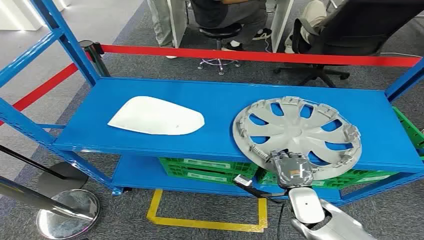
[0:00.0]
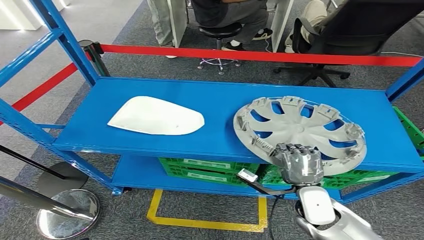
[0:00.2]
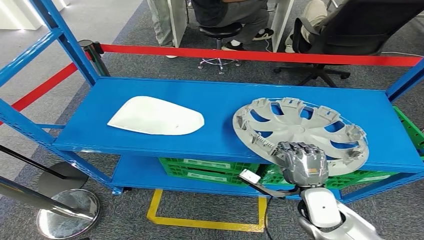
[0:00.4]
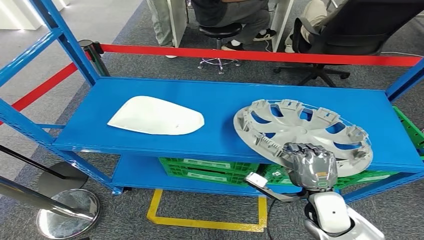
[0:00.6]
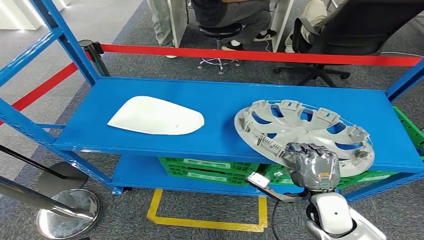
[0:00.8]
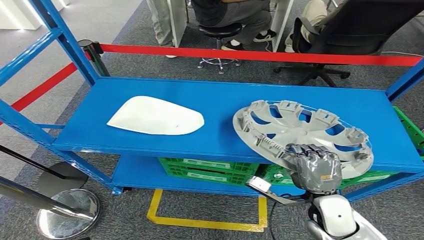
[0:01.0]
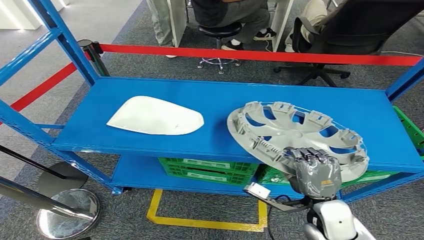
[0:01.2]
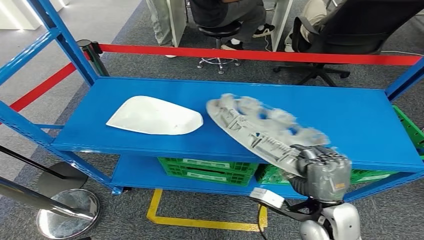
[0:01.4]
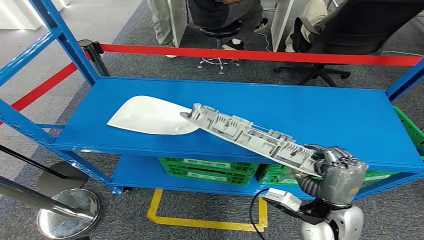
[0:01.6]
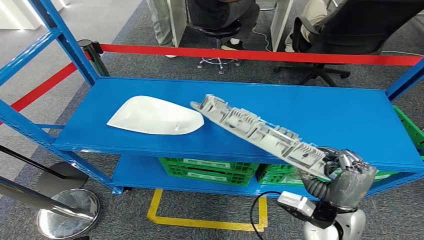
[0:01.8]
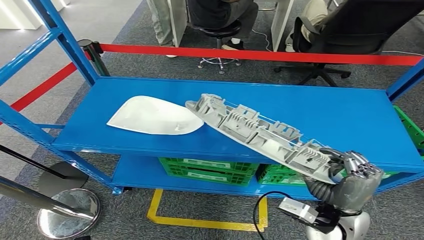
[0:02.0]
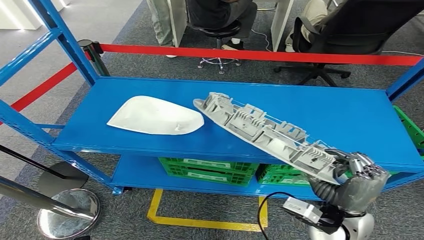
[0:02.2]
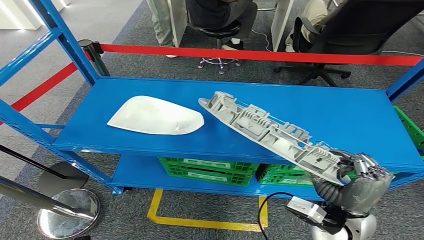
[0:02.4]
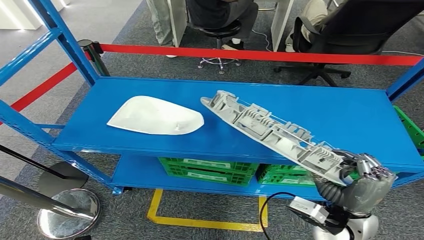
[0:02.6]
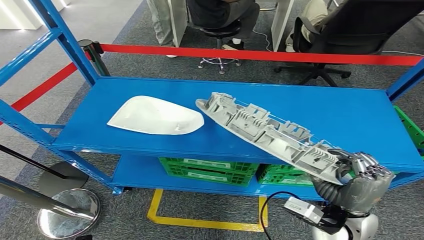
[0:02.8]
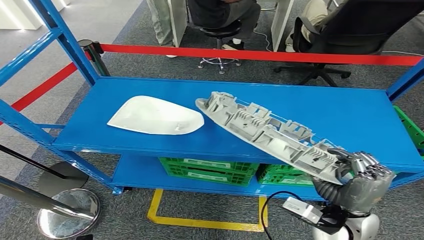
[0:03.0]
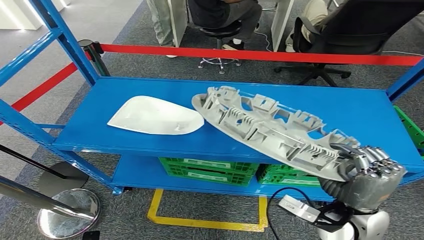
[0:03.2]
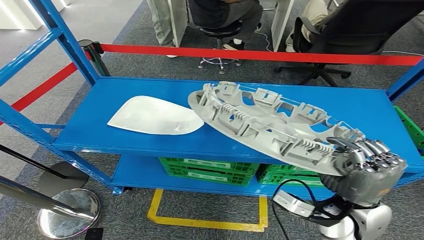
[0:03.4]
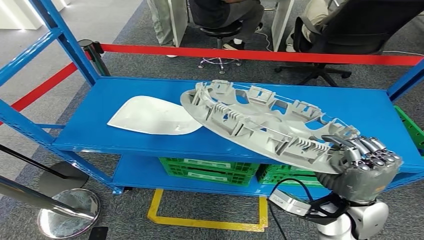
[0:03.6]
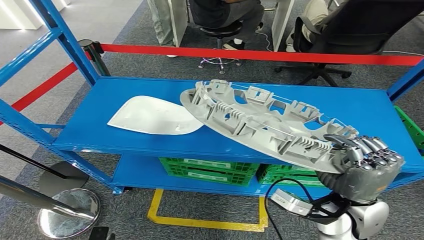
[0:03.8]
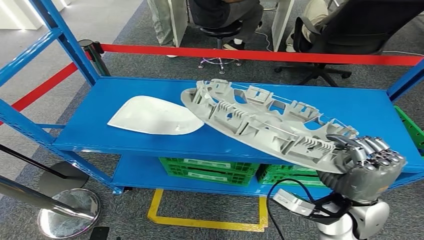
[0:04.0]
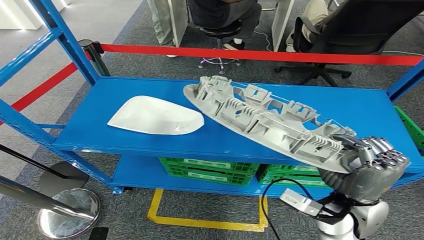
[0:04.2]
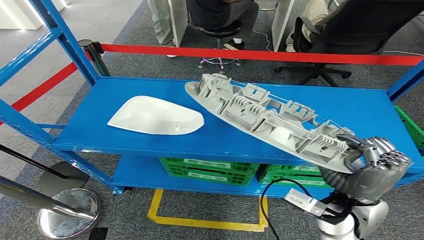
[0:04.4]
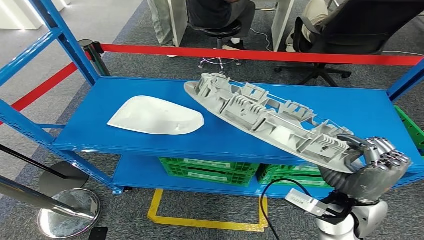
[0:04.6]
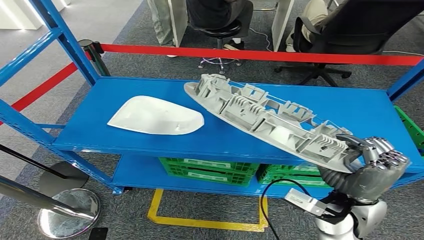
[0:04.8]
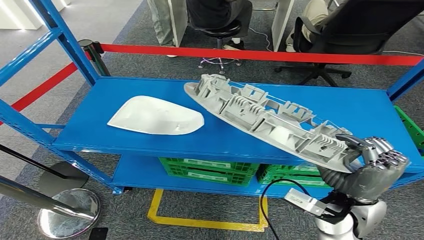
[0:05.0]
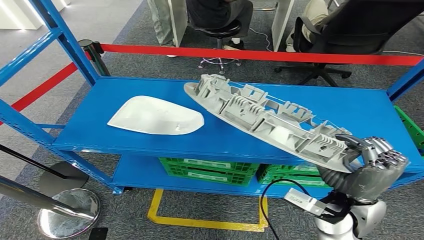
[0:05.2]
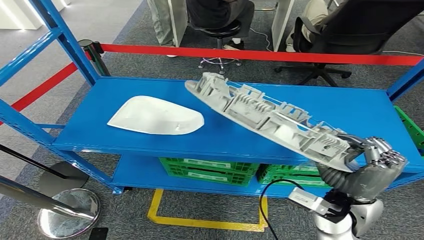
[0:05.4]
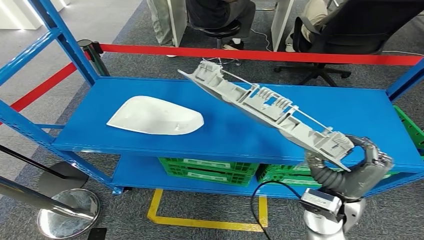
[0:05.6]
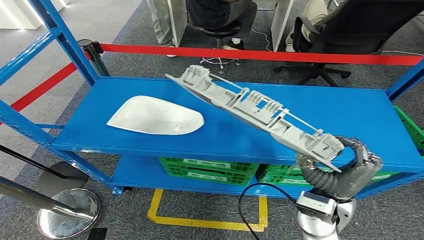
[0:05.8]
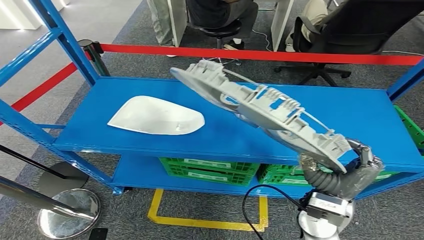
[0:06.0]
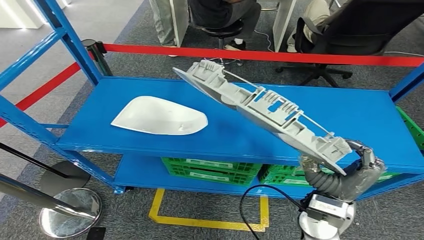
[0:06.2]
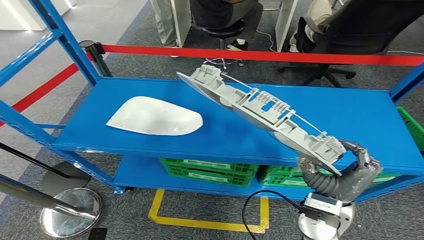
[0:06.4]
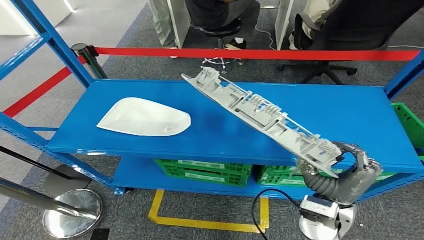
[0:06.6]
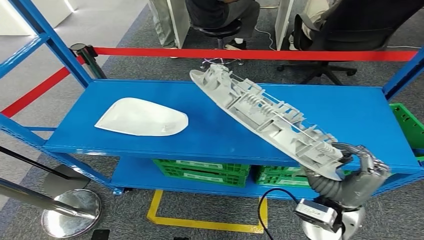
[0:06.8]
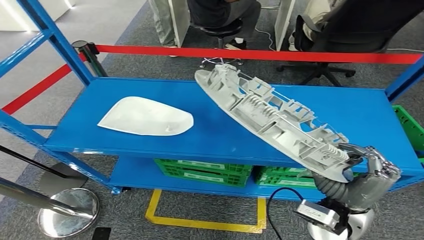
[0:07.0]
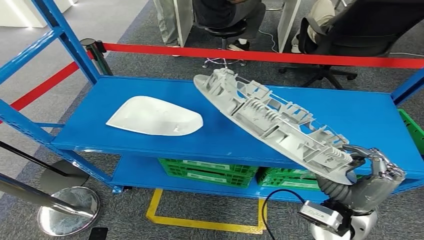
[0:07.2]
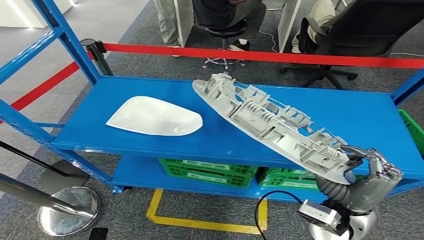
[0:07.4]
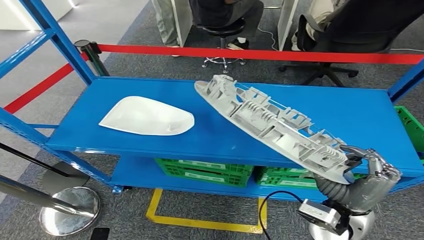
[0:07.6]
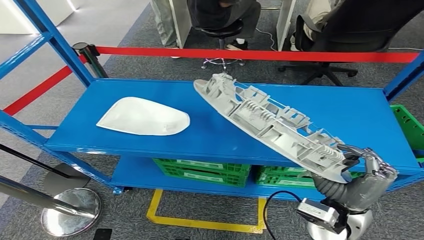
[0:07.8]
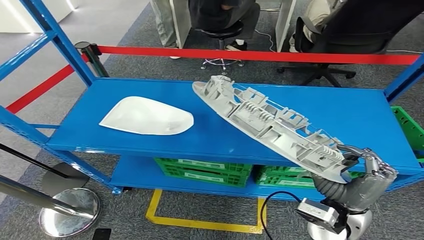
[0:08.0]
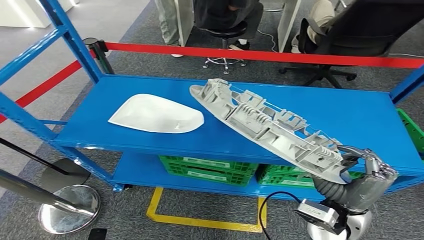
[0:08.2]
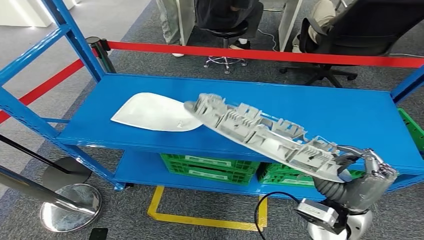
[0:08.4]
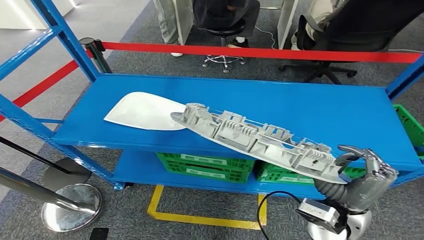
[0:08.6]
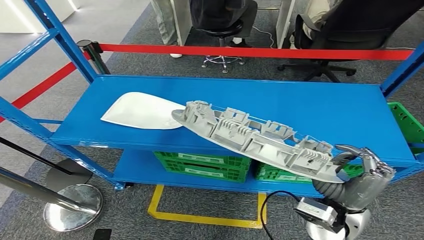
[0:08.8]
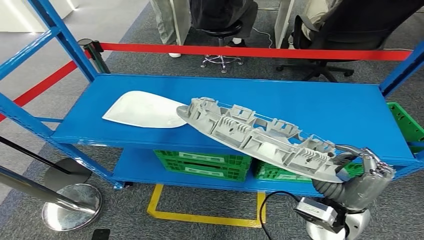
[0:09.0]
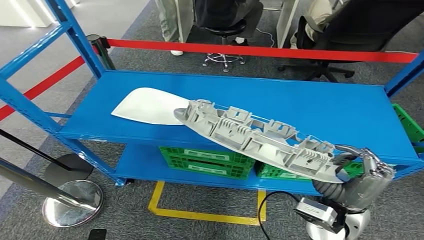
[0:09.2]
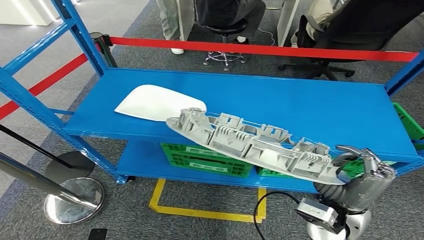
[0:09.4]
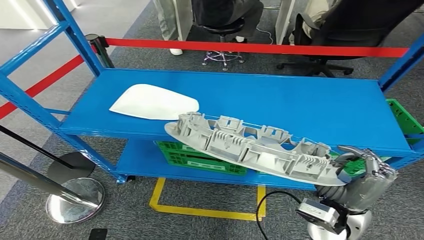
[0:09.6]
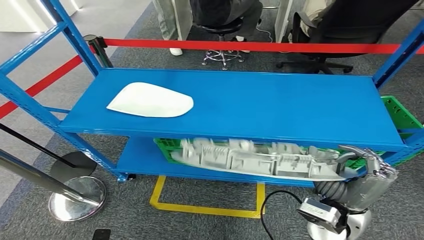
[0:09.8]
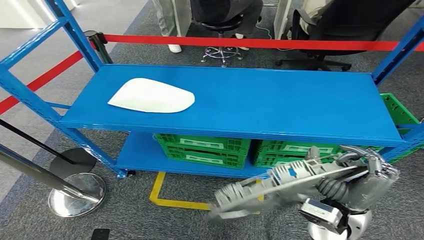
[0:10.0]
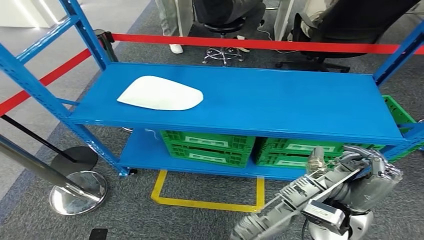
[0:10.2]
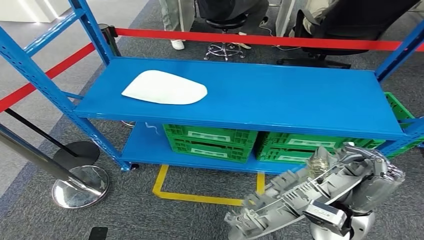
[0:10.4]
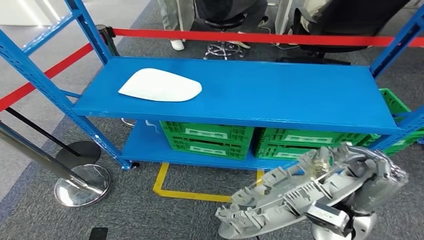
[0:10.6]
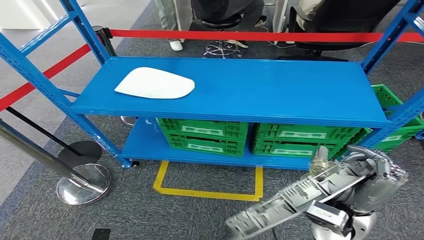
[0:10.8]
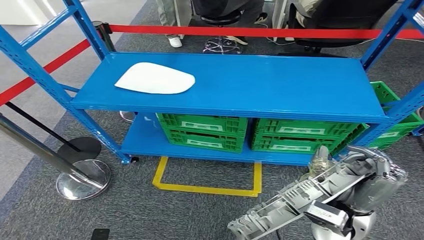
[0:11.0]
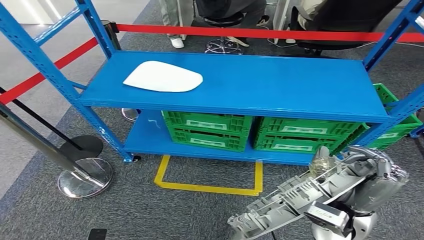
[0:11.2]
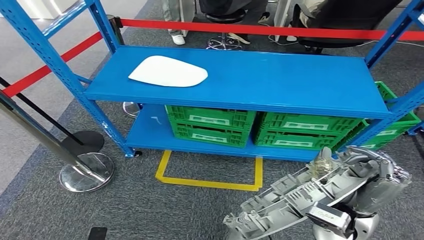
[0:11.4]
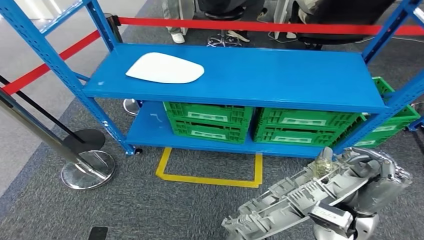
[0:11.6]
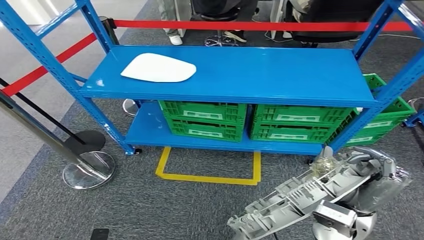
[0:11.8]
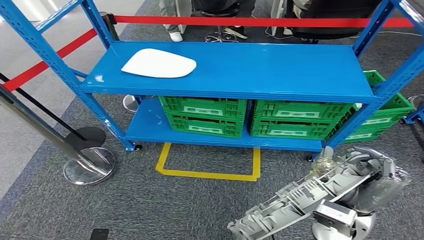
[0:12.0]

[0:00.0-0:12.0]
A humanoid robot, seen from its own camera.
Step, 0:00.0 to 0:04.2: Pick up the small component from the shelf.
0:01.6 to 0:03.0: The hands make only small movements.

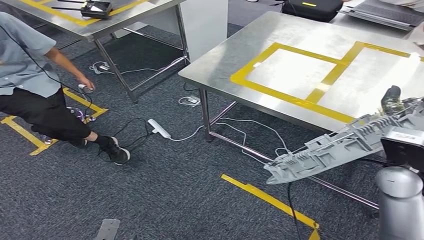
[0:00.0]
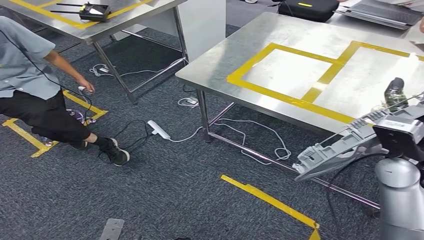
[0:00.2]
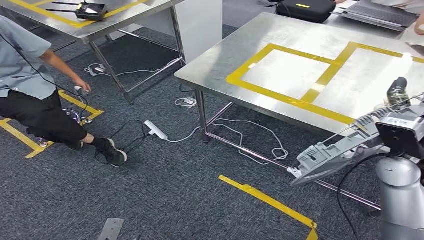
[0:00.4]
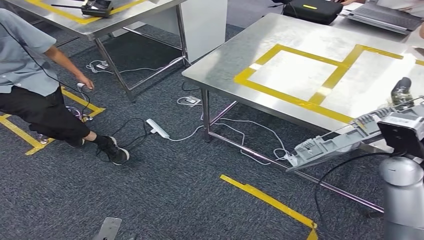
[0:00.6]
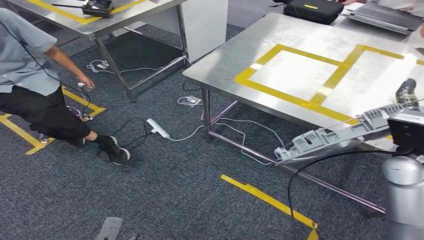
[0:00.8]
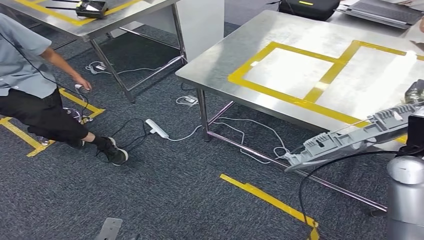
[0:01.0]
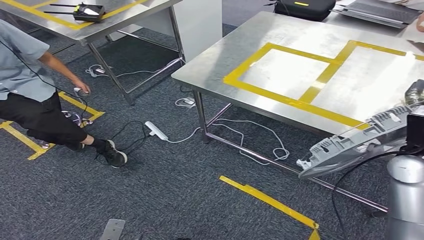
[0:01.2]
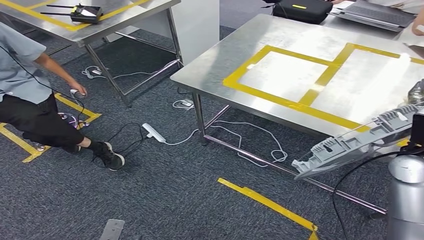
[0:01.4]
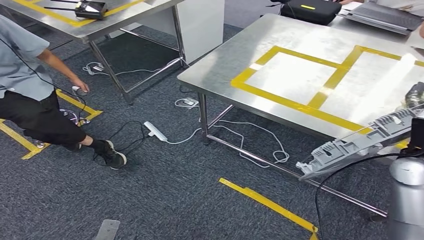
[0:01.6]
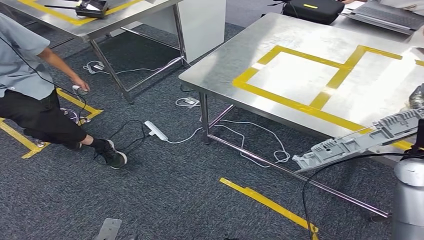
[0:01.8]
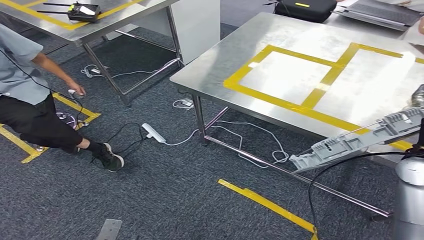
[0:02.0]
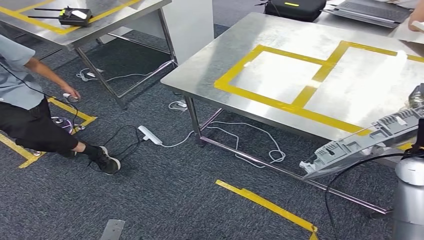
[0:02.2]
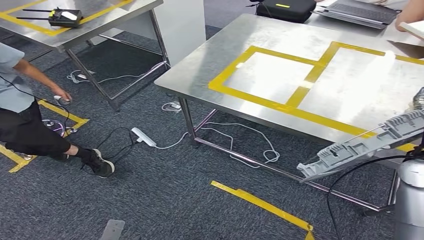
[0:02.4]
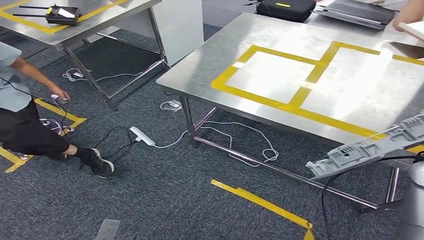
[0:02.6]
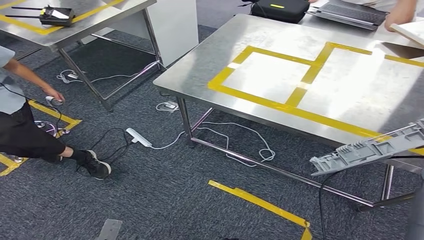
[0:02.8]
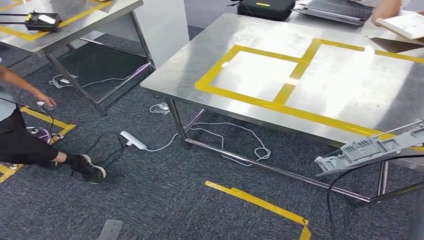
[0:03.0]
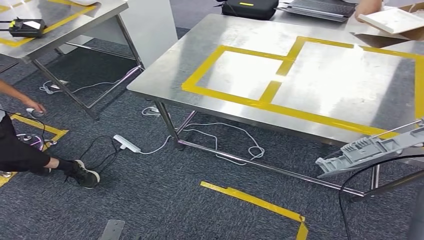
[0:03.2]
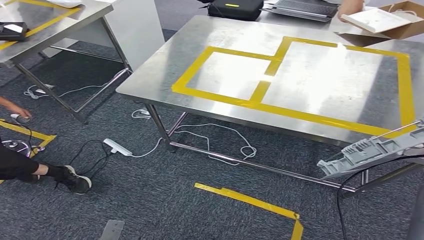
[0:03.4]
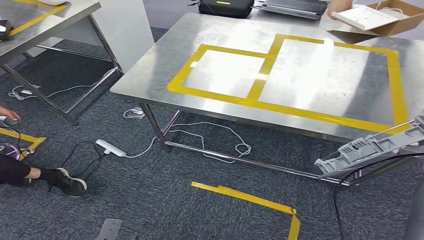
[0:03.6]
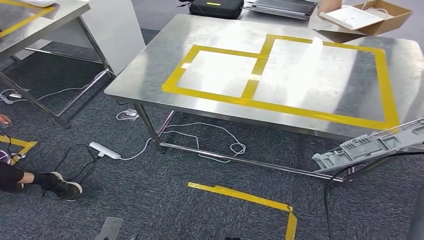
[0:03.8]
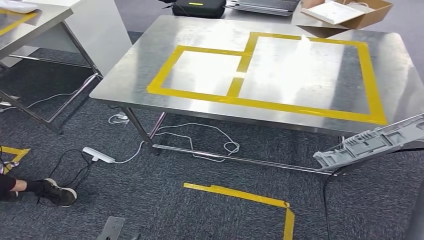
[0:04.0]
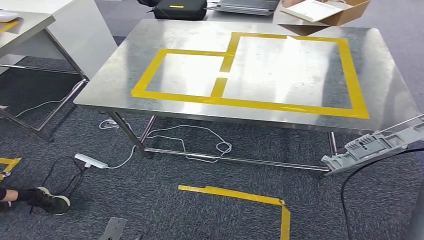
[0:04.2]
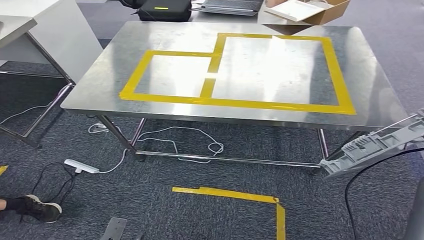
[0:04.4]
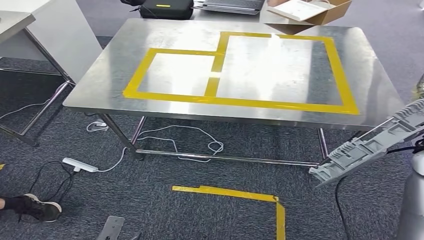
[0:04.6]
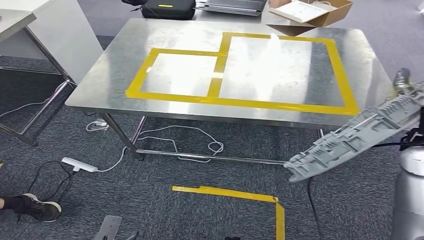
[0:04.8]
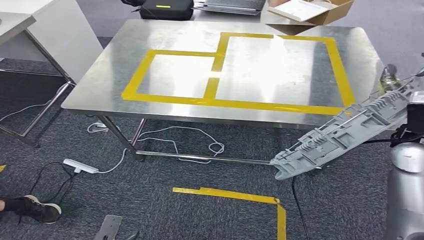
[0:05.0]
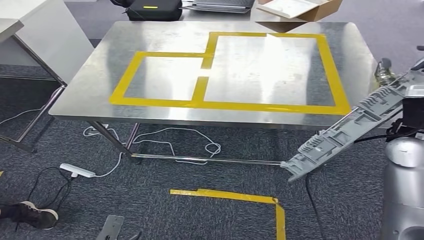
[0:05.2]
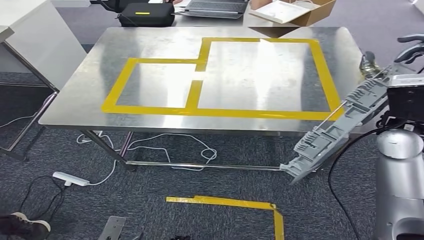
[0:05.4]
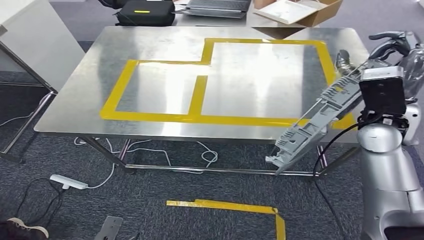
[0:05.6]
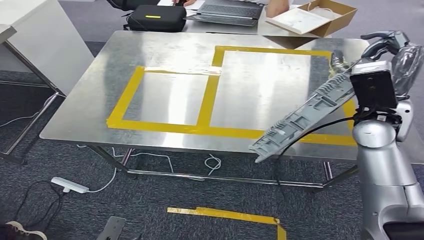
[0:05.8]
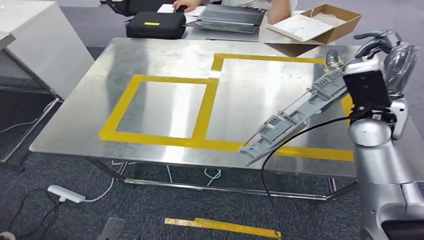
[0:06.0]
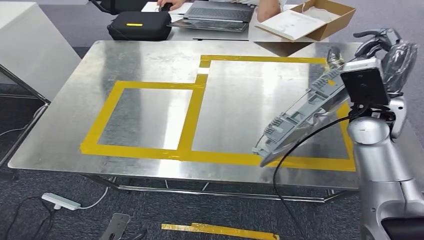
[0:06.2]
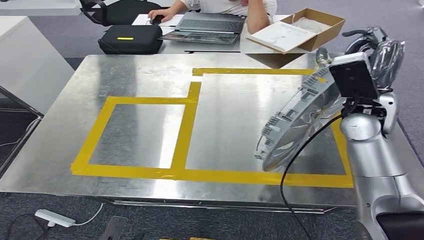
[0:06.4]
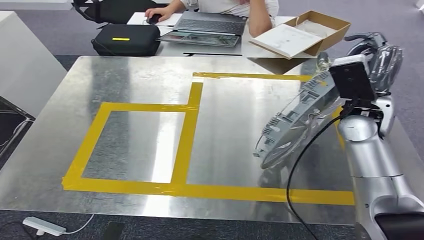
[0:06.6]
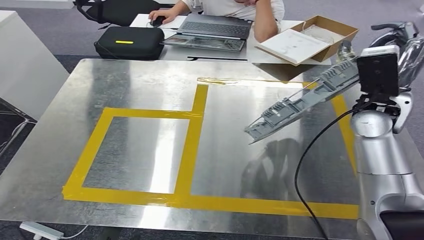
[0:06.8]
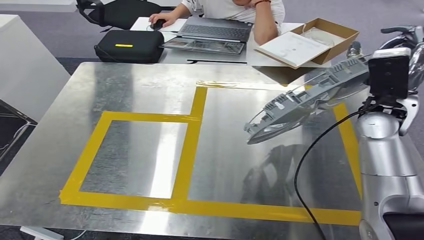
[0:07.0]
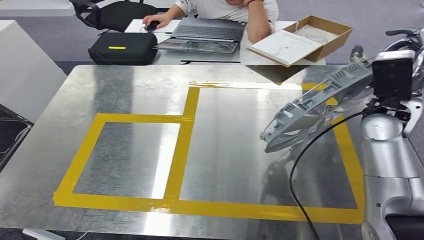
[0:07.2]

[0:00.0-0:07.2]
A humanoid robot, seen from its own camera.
Step, 0:00.0 to 0:06.0: Bring the small component to the front of the workbench.
